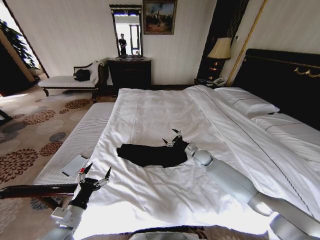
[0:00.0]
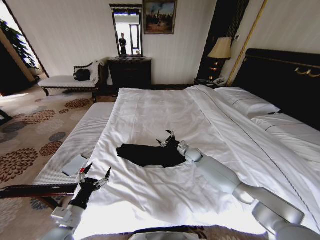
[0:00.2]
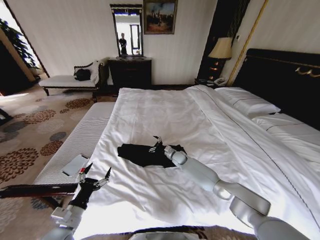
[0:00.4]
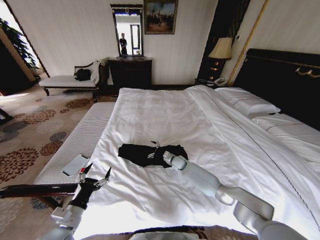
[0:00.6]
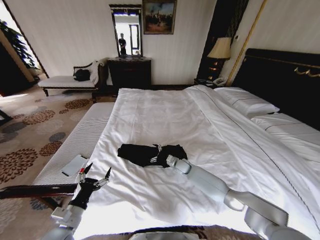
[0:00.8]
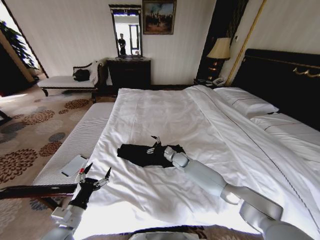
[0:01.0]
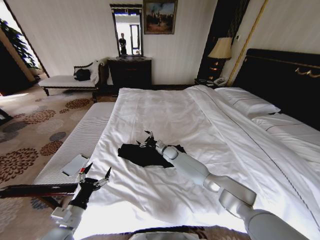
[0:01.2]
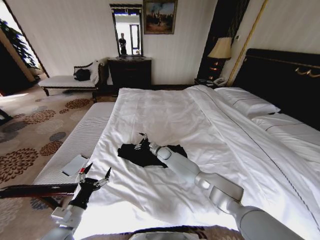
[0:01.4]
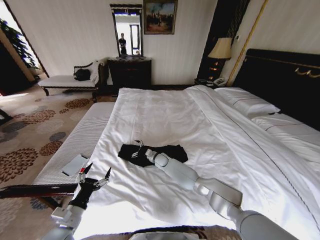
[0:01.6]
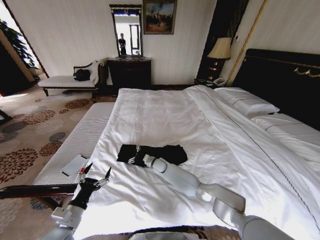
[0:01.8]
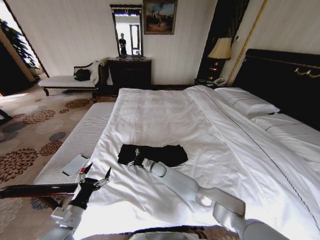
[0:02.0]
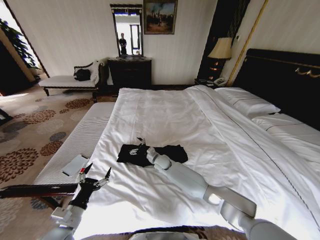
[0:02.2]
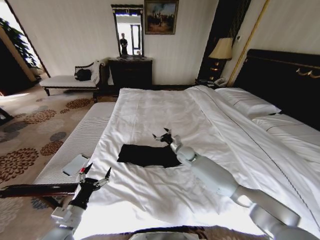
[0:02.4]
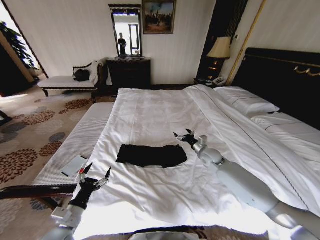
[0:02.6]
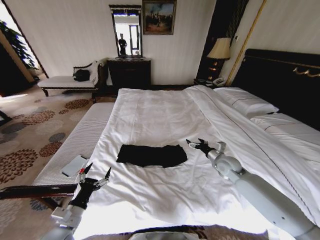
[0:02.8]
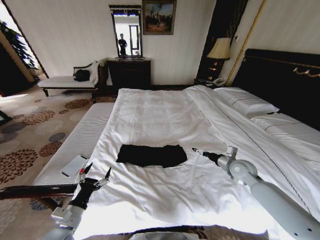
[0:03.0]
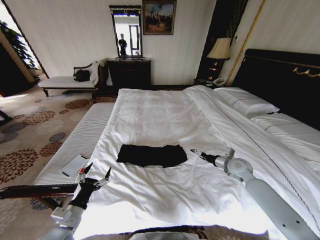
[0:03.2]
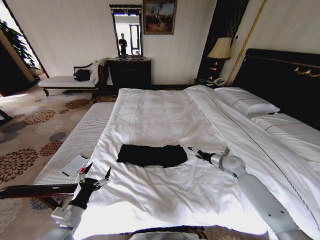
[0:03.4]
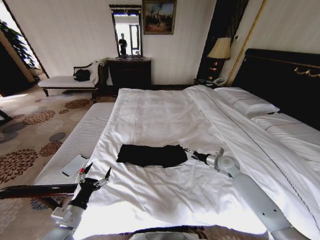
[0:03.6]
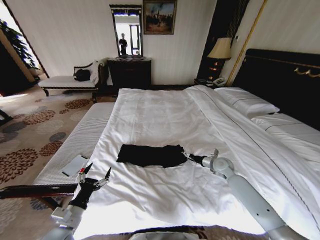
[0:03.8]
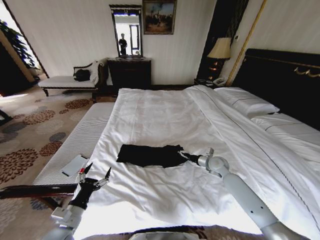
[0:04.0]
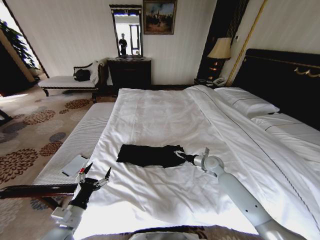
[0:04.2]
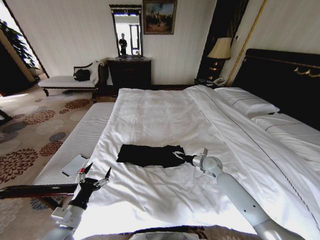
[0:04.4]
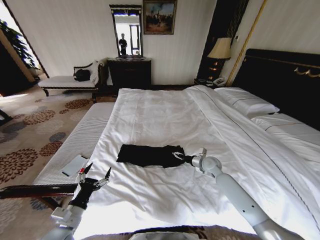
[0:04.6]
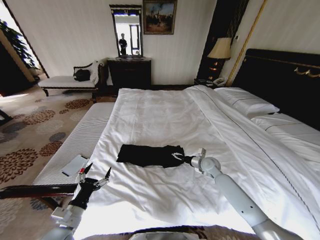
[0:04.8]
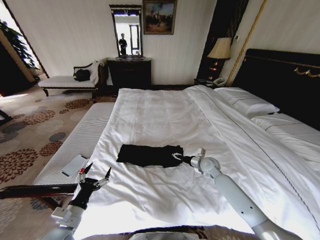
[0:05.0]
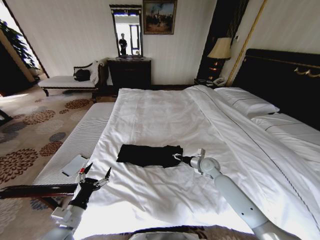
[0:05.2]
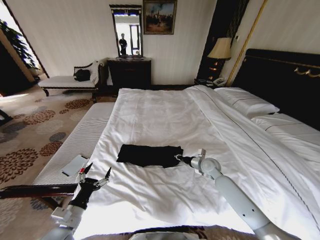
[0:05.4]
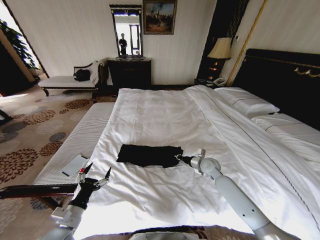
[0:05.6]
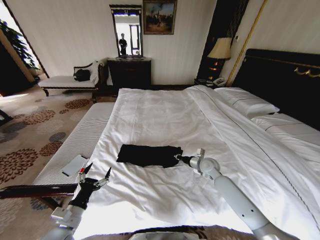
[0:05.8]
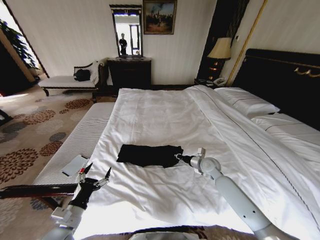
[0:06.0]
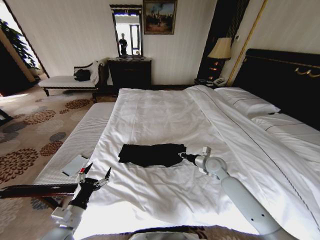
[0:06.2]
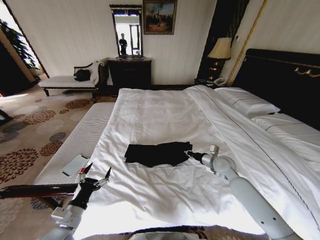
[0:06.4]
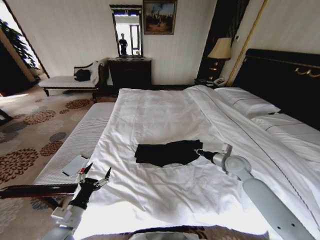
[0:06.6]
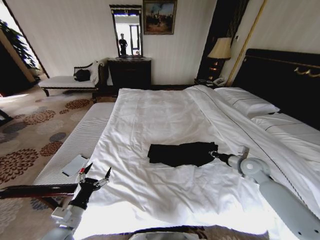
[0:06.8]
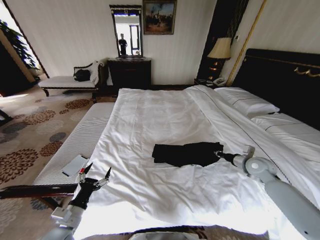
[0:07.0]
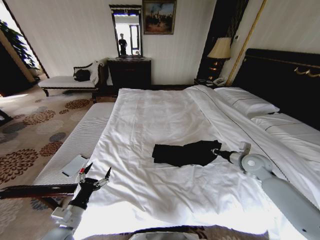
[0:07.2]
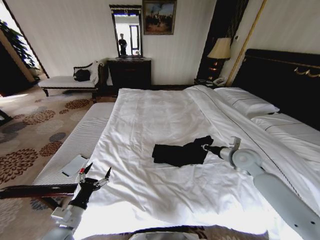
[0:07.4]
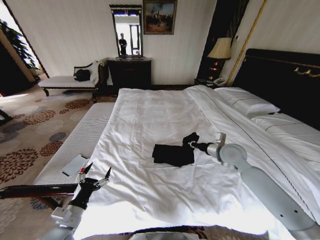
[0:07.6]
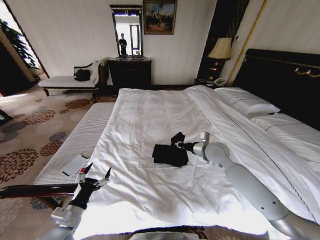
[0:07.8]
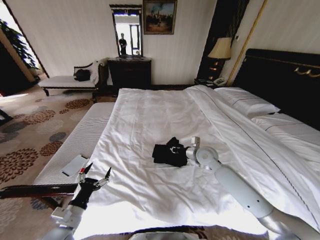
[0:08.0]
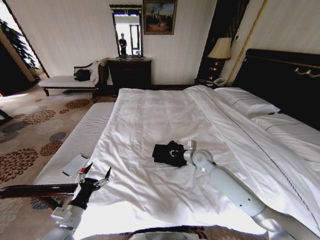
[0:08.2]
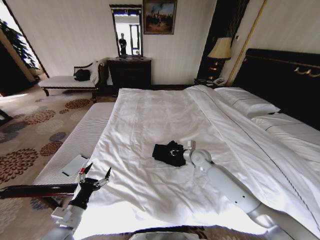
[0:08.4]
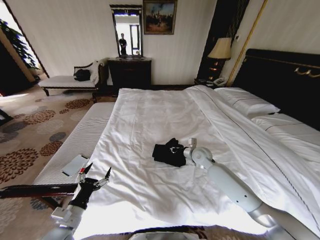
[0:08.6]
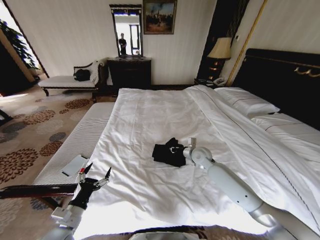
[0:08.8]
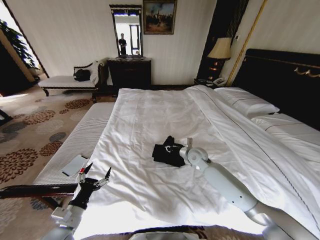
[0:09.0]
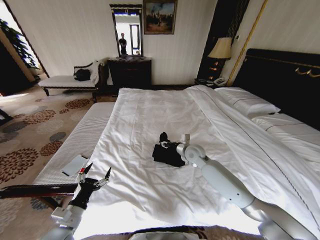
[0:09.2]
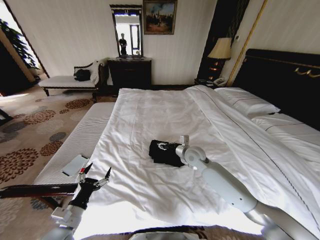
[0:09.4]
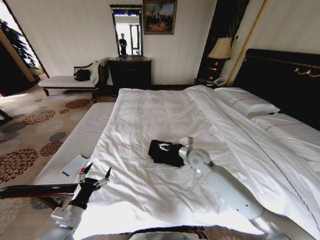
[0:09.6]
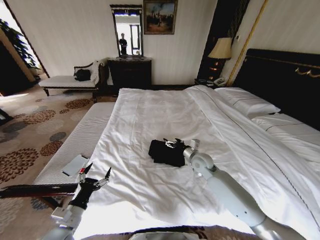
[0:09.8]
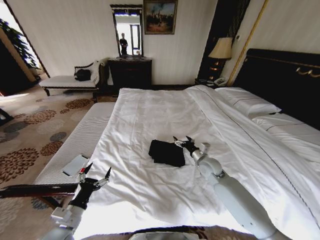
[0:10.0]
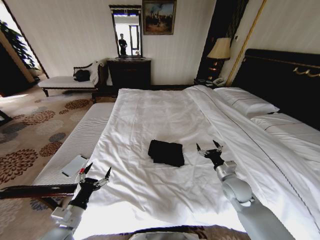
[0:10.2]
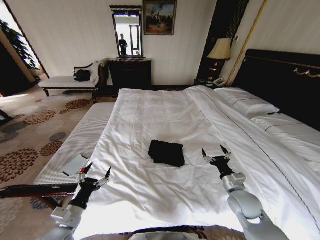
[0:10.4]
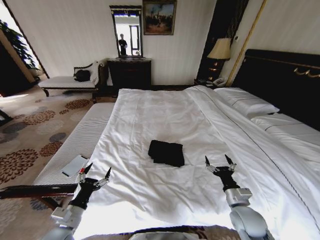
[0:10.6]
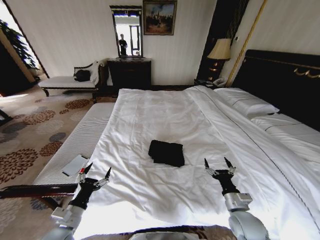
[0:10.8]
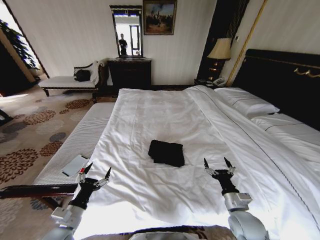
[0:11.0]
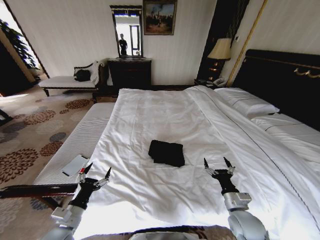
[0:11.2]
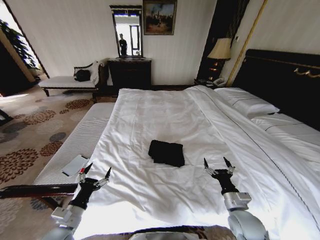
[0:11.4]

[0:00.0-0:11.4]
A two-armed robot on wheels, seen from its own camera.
Task of the whole recording: Fold the clothes on the bed.
0:00.0 to 0:01.4: The right gripper is displaced to the left by approximately 20 cm.
0:01.4 to 0:02.8: The right gripper goes about 30 cm to the right and backward.
0:02.8 to 0:04.2: The right gripper changes place by about 5 cm.
0:04.2 to 0:05.6: The right gripper closes.
0:05.6 to 0:07.2: The right gripper heads to the right and upward, covering roughly 20 cm.
0:07.2 to 0:08.6: The right gripper goes some 20 cm to the left.
0:08.6 to 0:10.0: The right gripper is displaced backward by roughly 5 cm, and opens its fingers.
0:10.0 to 0:11.4: The right gripper moves backward, some 20 cm.

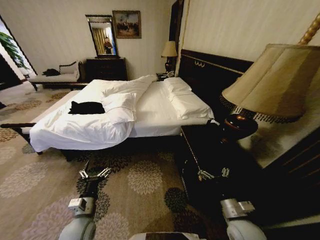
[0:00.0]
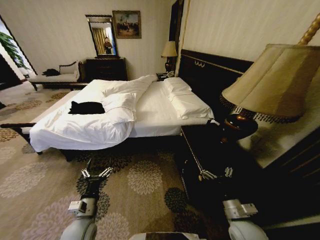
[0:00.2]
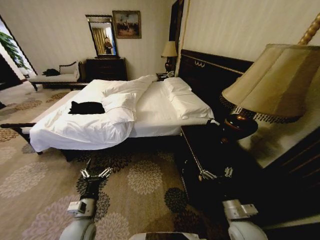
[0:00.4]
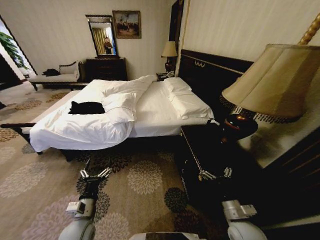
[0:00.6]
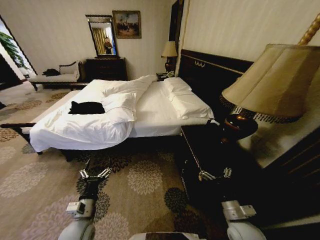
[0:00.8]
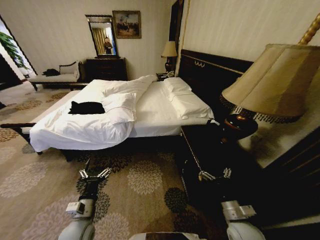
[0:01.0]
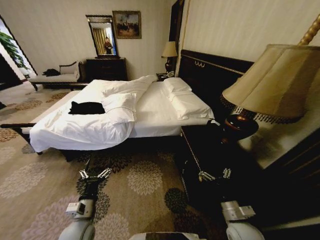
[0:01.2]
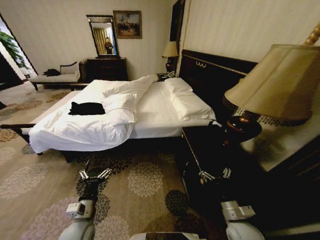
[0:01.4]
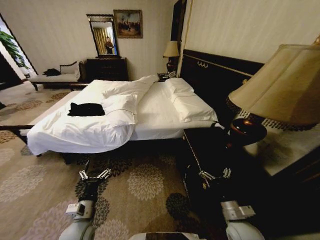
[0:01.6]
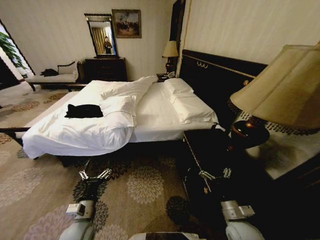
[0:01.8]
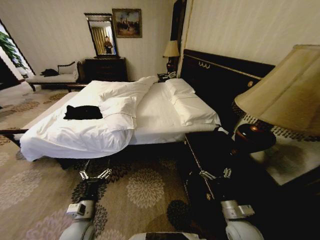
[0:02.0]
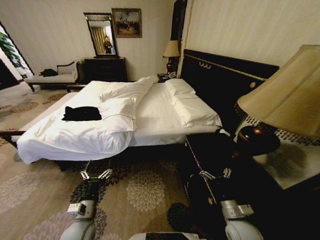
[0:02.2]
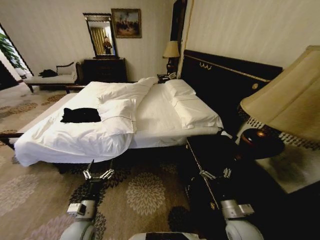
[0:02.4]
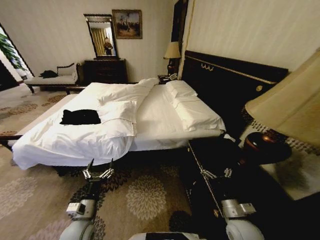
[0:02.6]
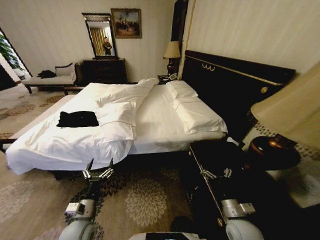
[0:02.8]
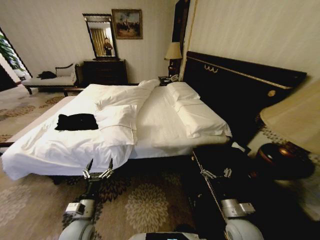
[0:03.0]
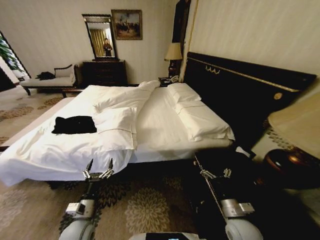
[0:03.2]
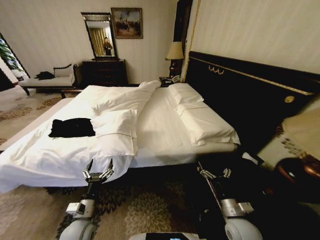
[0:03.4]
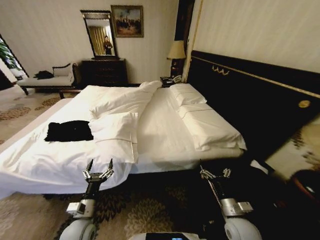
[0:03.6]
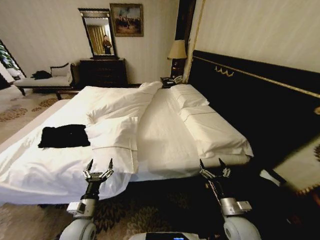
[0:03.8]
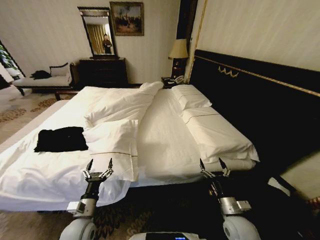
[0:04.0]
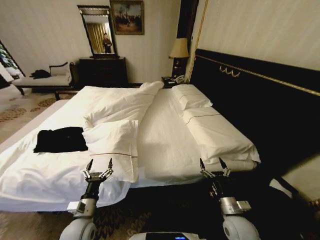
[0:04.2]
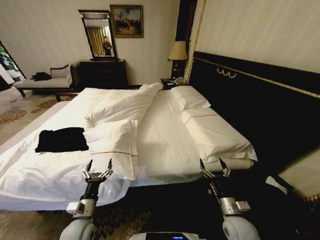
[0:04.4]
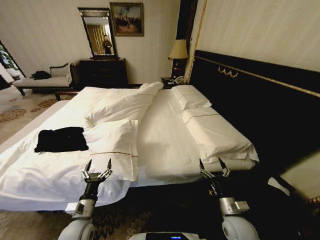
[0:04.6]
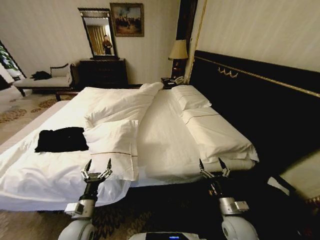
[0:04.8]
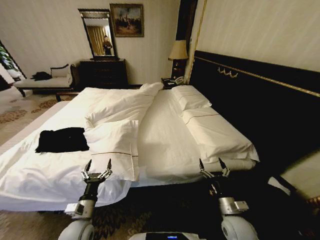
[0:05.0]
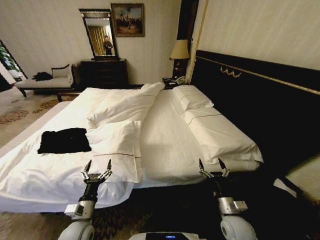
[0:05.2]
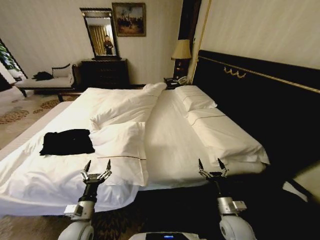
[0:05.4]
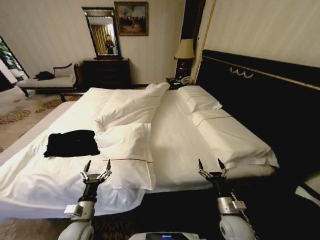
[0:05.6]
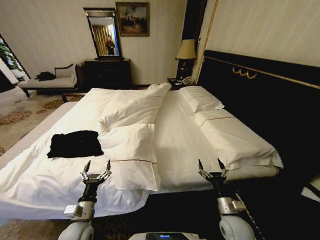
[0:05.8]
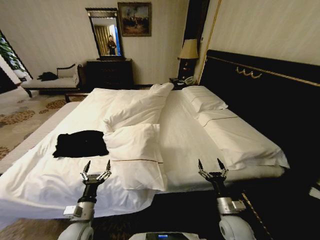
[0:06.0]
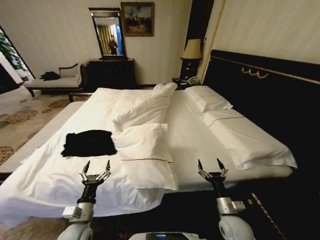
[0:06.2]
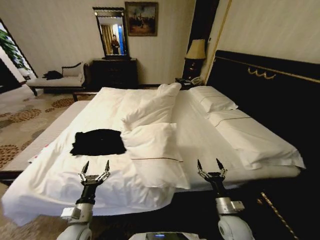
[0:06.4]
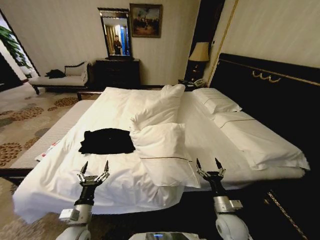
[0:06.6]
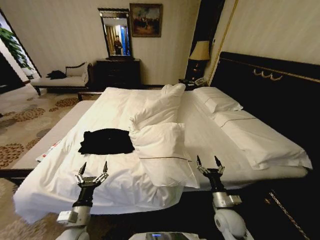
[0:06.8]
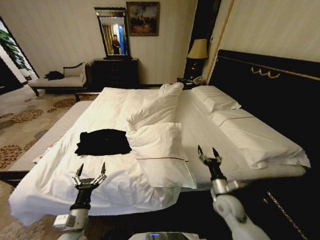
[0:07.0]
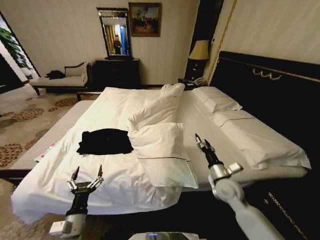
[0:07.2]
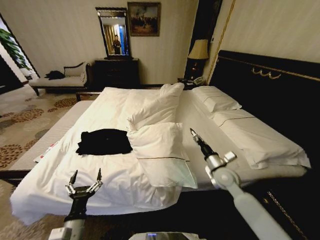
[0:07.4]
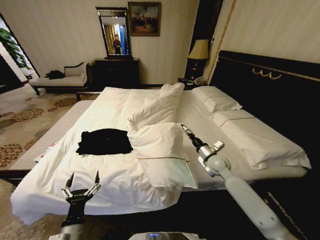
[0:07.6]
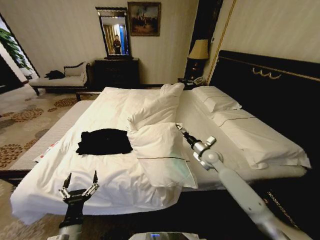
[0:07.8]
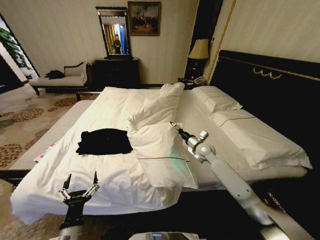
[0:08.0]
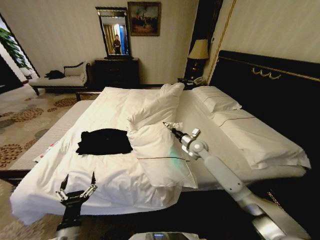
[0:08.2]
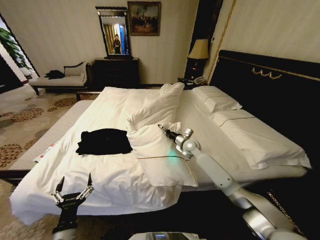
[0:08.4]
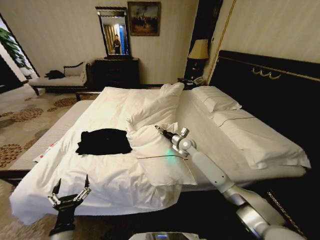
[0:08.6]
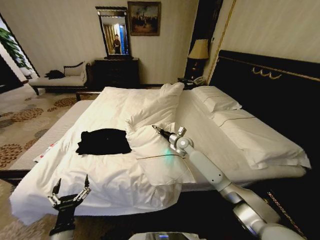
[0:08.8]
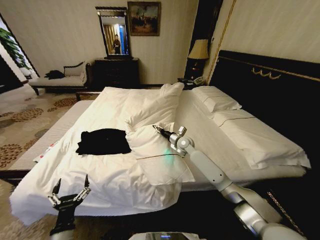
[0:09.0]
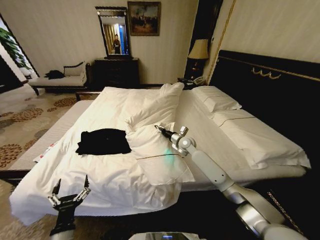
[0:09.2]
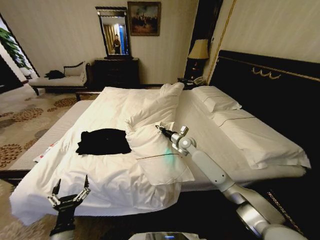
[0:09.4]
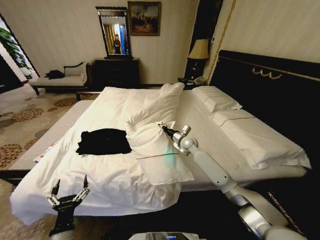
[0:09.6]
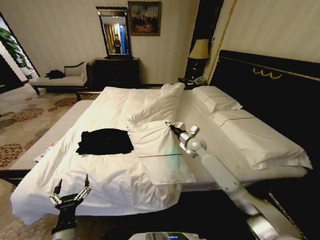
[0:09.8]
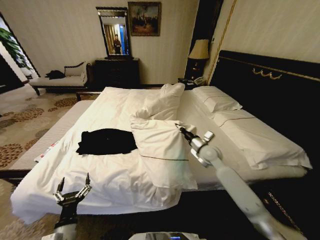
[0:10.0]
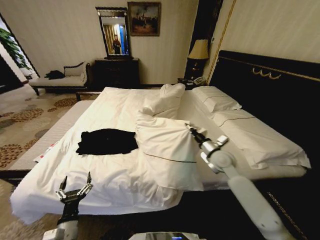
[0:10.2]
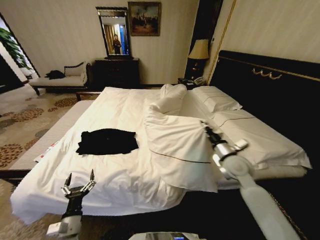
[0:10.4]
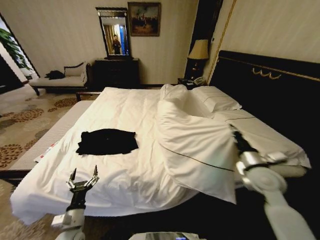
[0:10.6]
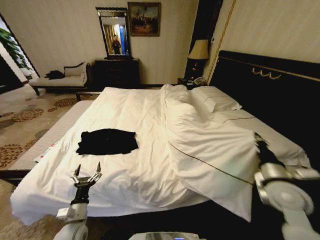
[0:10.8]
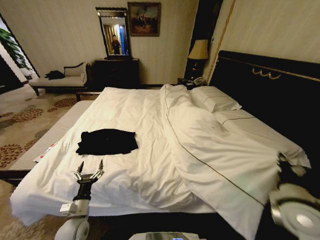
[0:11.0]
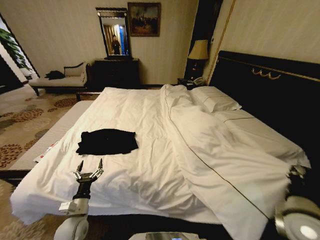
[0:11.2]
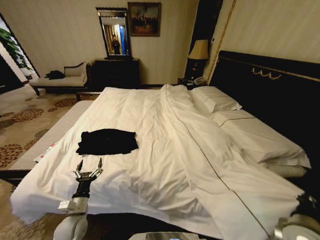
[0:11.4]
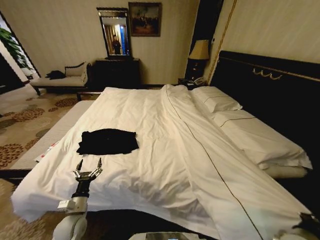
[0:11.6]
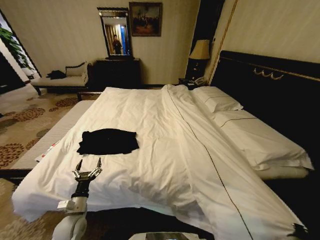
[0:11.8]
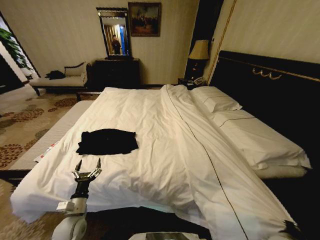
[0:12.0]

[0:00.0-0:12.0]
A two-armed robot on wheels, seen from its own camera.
Task of the whole recording: Fold the clothes on the bed.
0:06.0 to 0:07.6: The left gripper travels backward by approximately 5 cm; the right gripper travels forward and upward by approximately 25 cm.
0:07.6 to 0:09.0: The right gripper heads forward and to the left, covering roughly 20 cm.
0:09.0 to 0:10.4: The left gripper changes place by some 5 cm, while the right gripper heads backward and to the right, covering some 20 cm, and closes.
0:10.4 to 0:12.0: The left gripper heads forward, covering about 5 cm. Meanwhile the right gripper moves backward, downward and to the right, some 30 cm.
